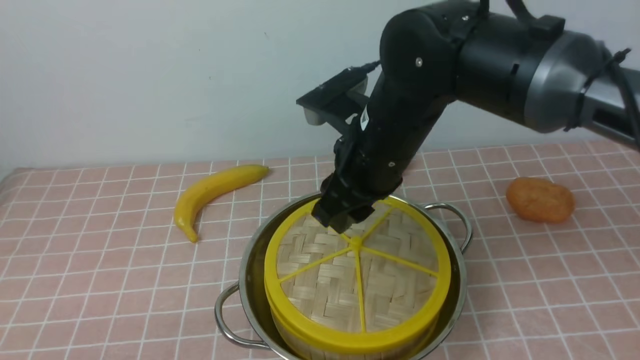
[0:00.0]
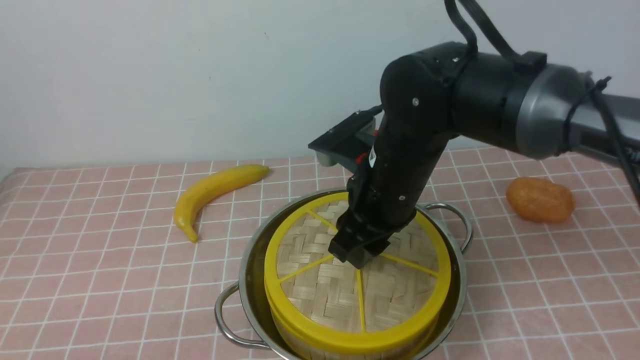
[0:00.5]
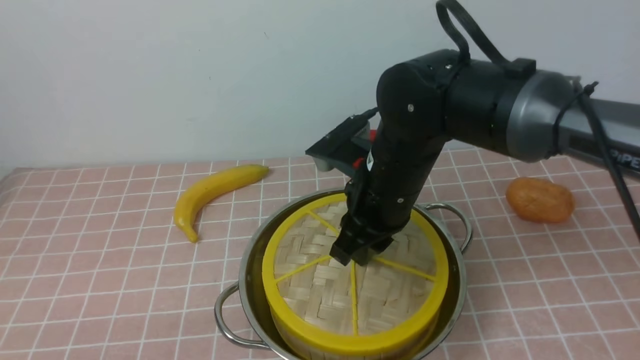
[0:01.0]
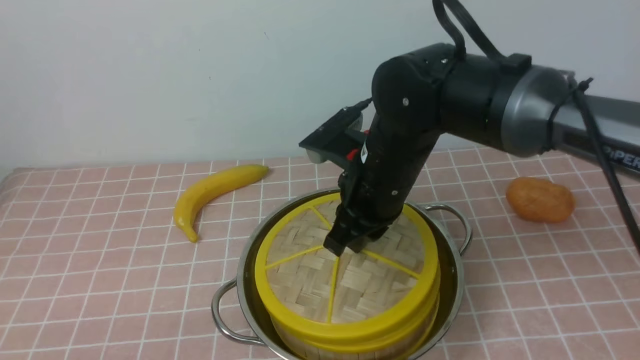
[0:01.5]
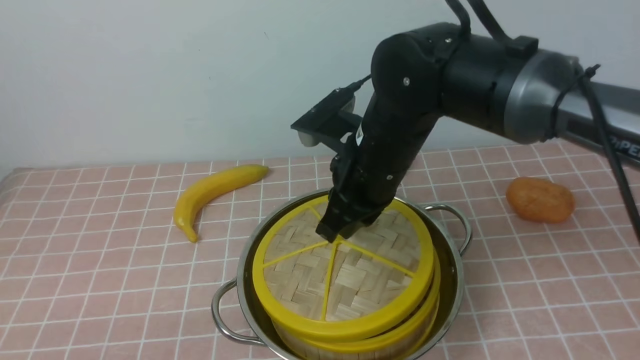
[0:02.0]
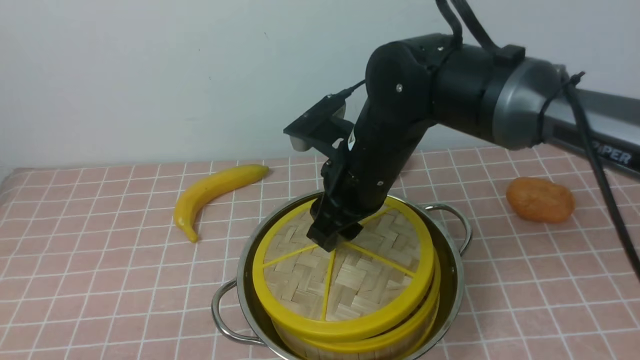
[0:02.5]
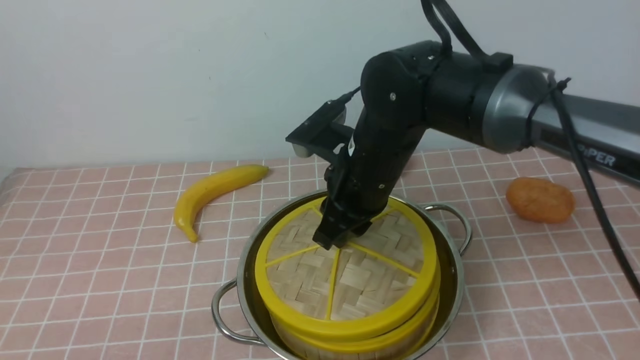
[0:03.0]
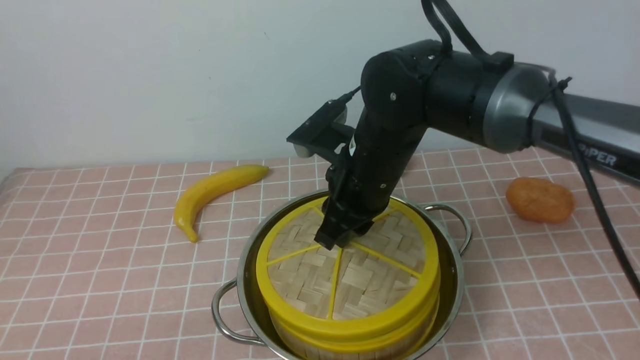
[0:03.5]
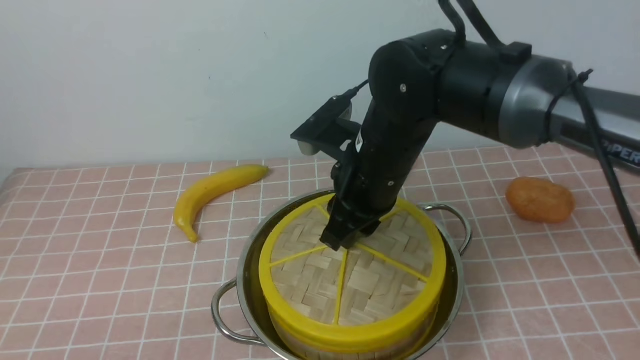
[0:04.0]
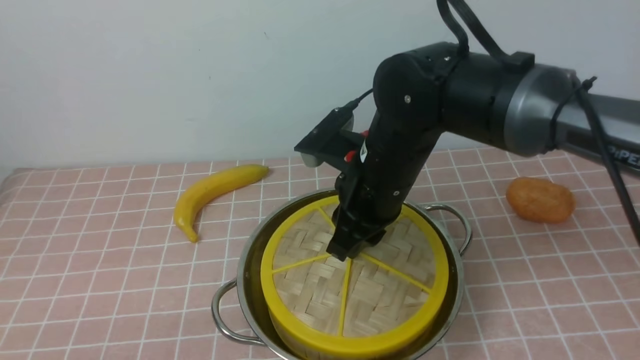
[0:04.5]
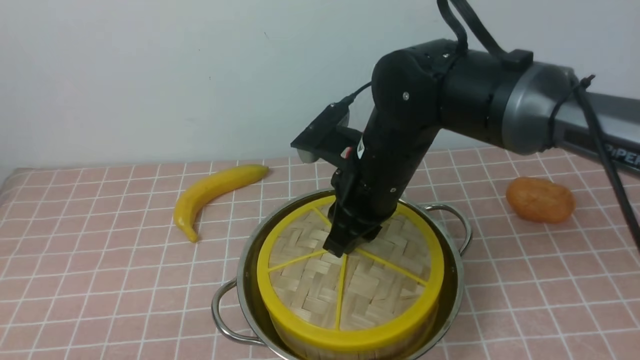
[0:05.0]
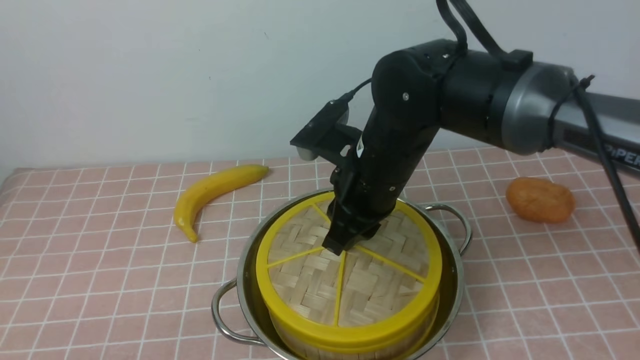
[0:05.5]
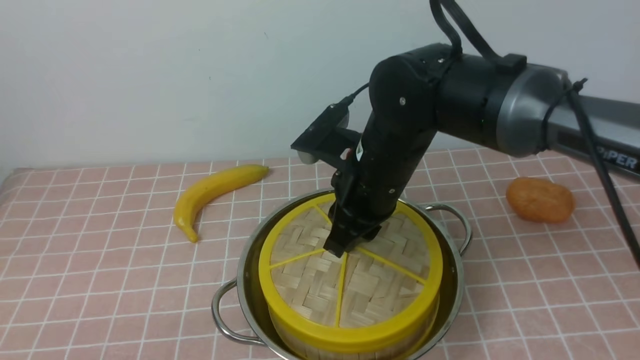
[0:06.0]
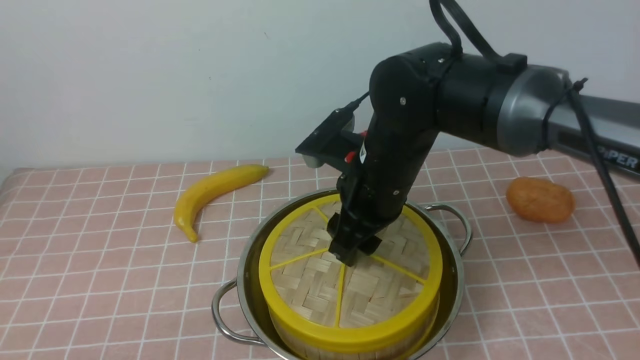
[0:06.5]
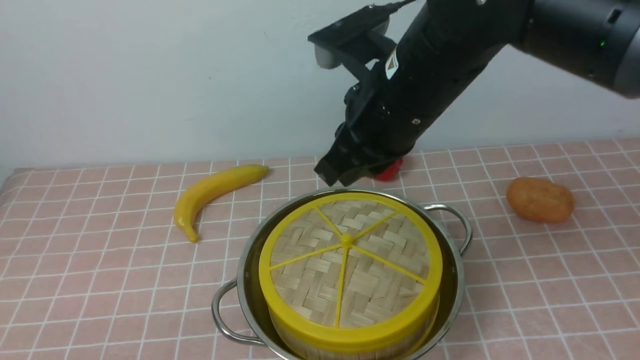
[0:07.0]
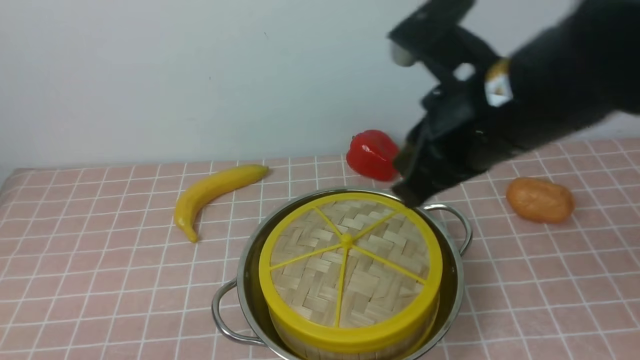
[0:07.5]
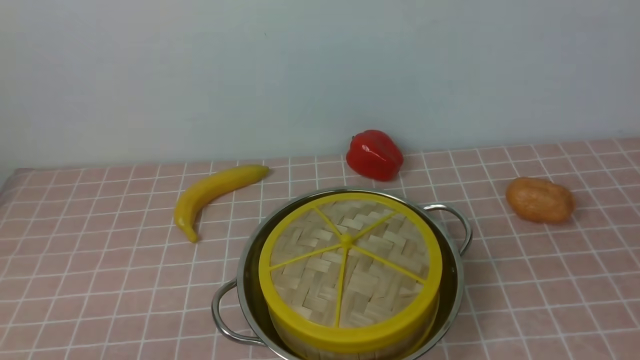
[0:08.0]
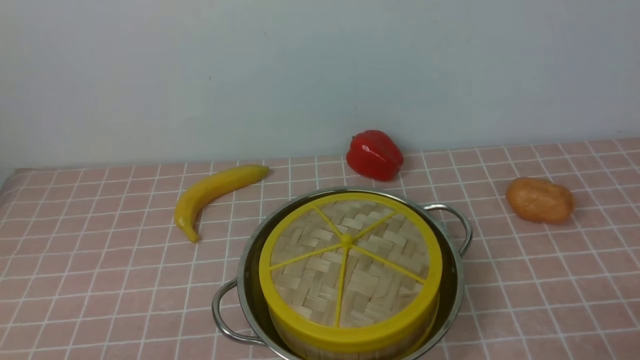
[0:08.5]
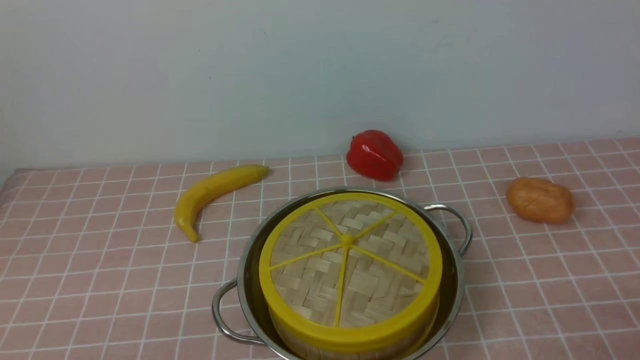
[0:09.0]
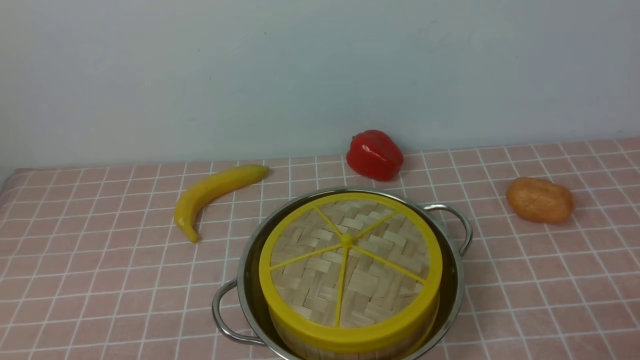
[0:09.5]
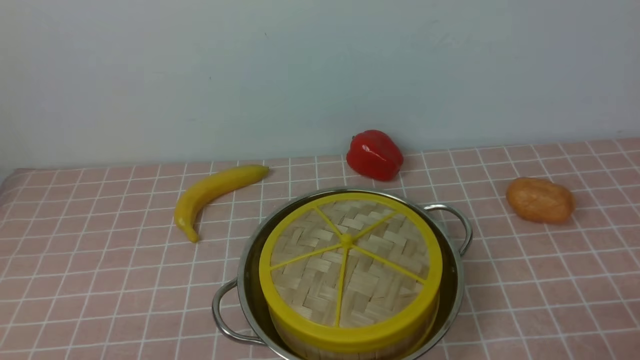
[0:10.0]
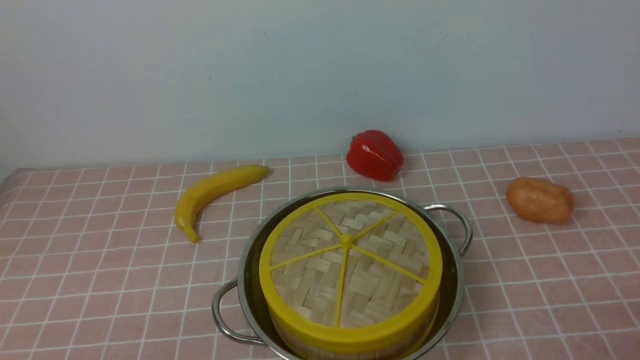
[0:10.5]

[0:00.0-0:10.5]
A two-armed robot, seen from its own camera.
Task of the whole recording: place the steamer in the pot on the pink tablecloth, and put the lid on the steamer.
Step, 0:00.0 to 0:06.5: use the right arm to place the steamer lid on the steamer.
0:00.0 to 0:02.0: The right gripper closes.
0:02.0 to 0:04.0: The right gripper opens up.
0:04.0 to 0:06.5: The right gripper opens.
0:06.5 to 0:08.5: The right gripper goes roughly 40 cm to the right and backward, and closes up.
